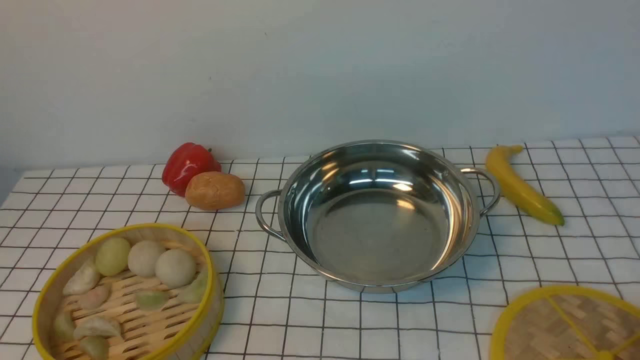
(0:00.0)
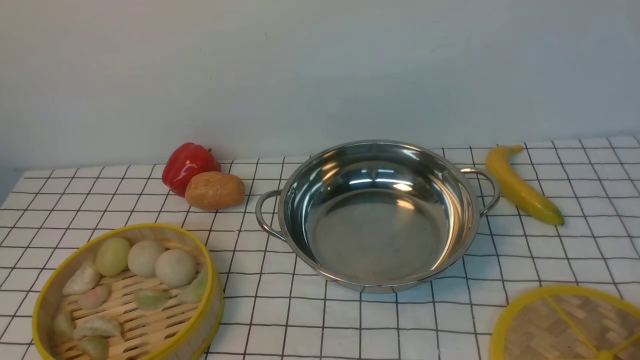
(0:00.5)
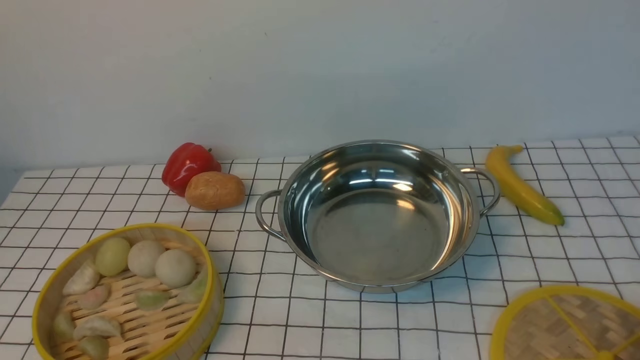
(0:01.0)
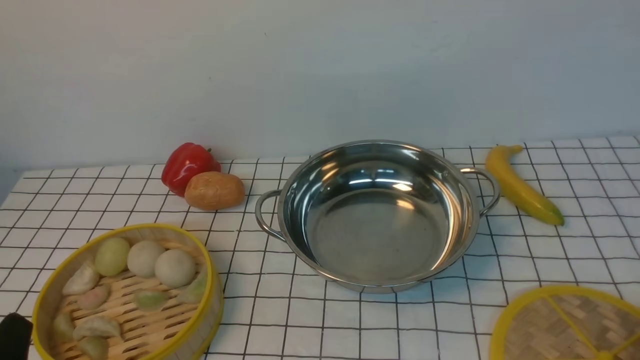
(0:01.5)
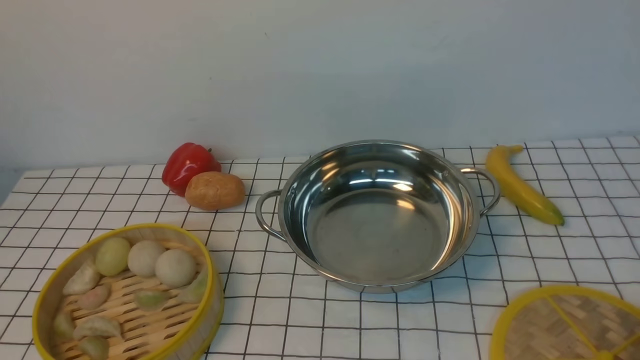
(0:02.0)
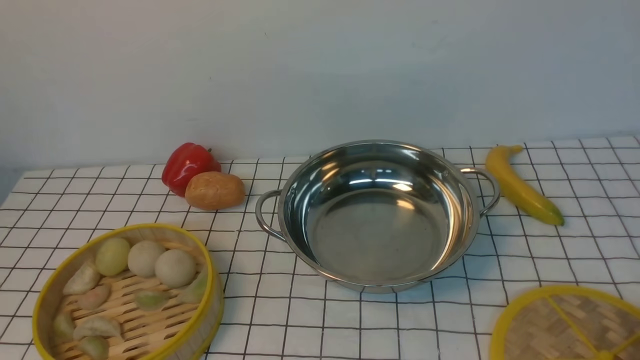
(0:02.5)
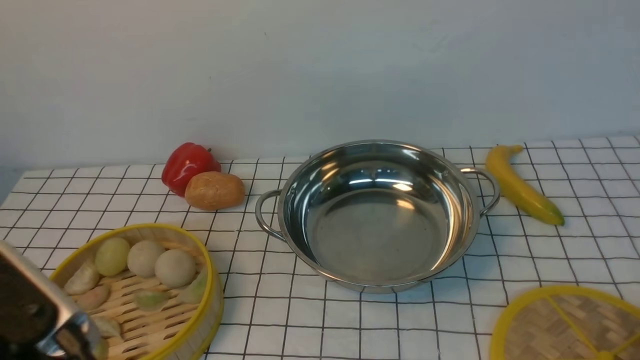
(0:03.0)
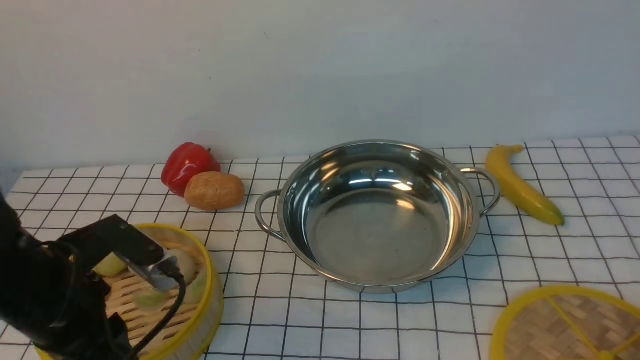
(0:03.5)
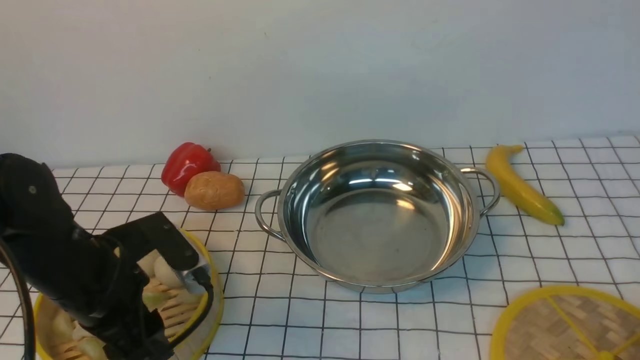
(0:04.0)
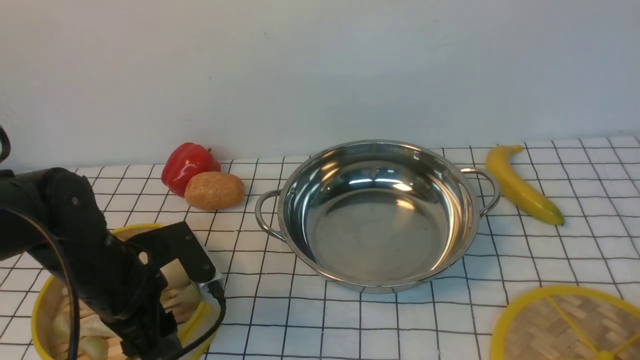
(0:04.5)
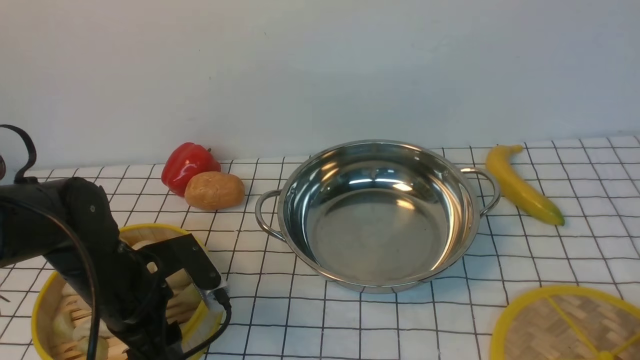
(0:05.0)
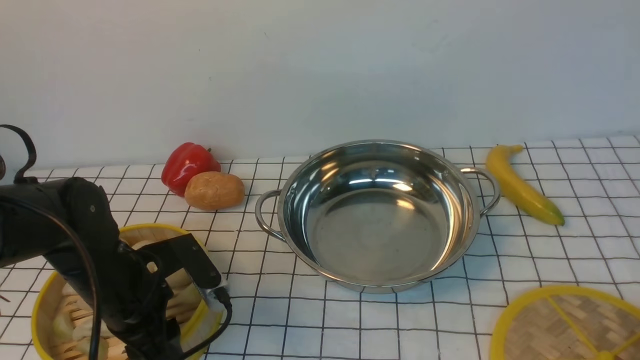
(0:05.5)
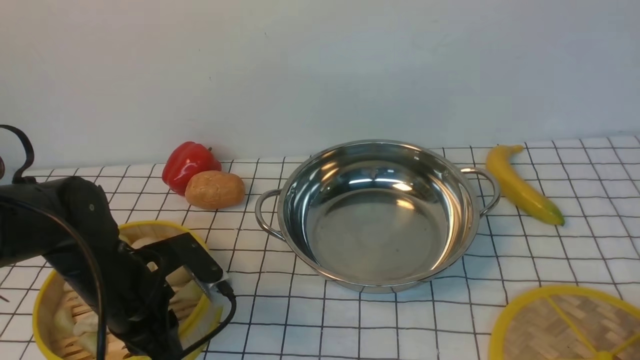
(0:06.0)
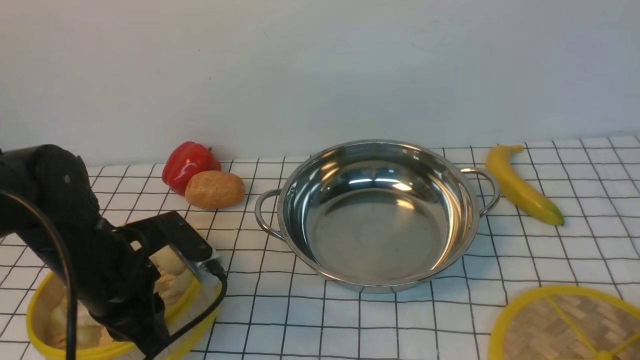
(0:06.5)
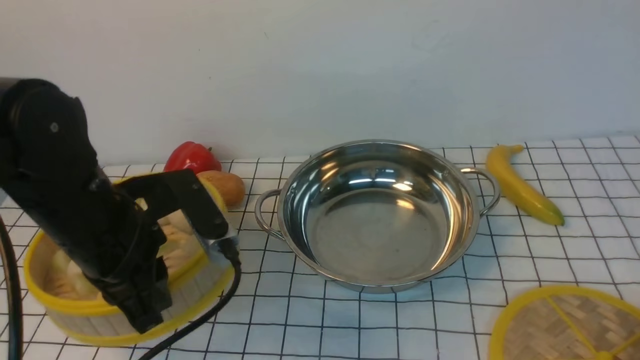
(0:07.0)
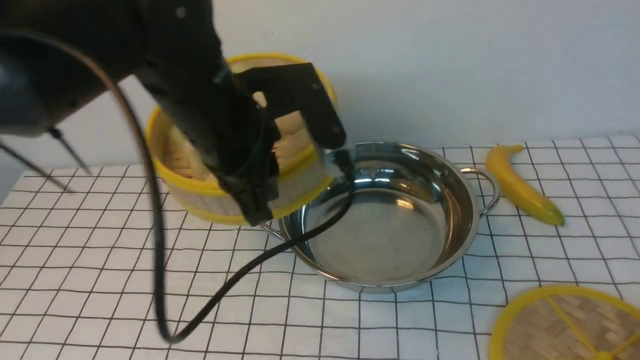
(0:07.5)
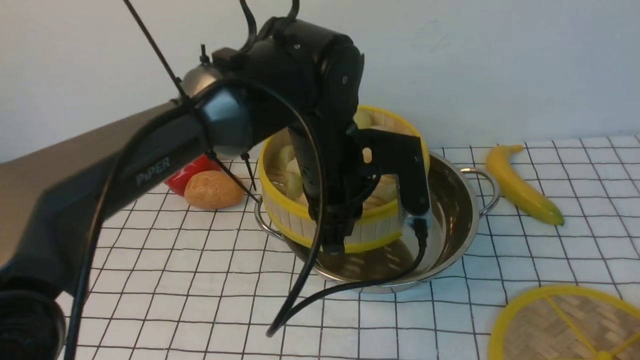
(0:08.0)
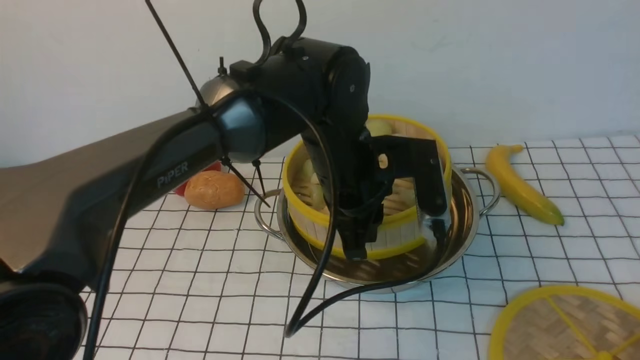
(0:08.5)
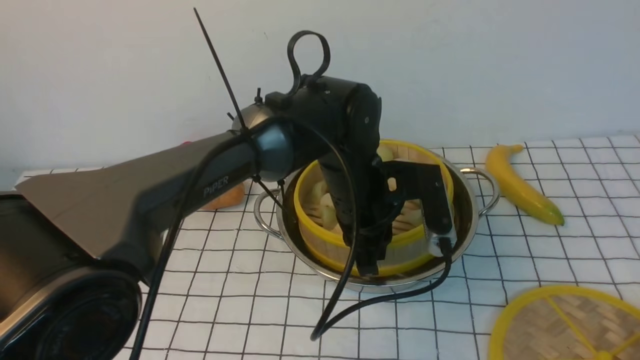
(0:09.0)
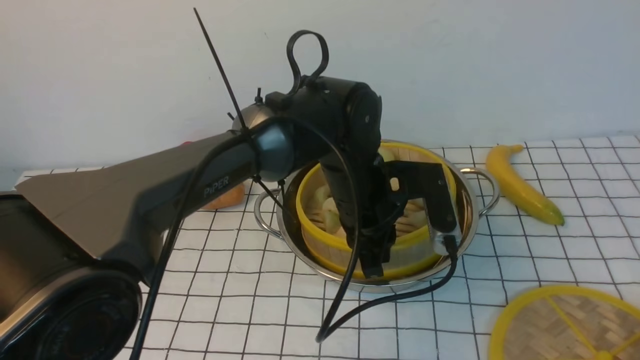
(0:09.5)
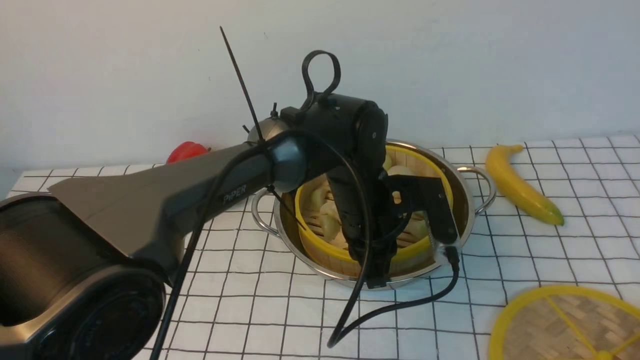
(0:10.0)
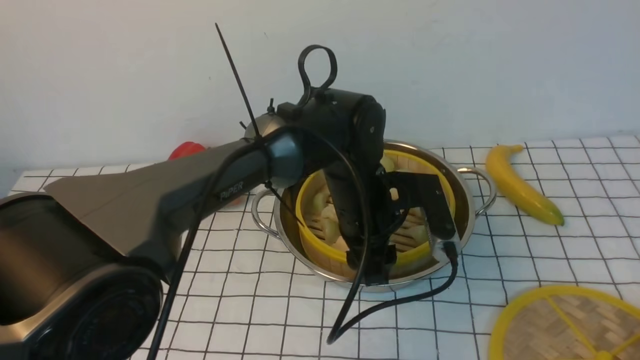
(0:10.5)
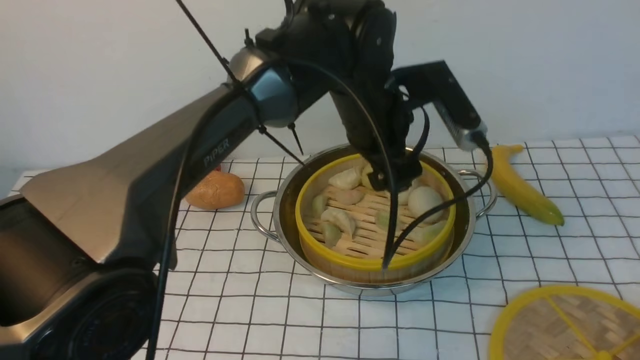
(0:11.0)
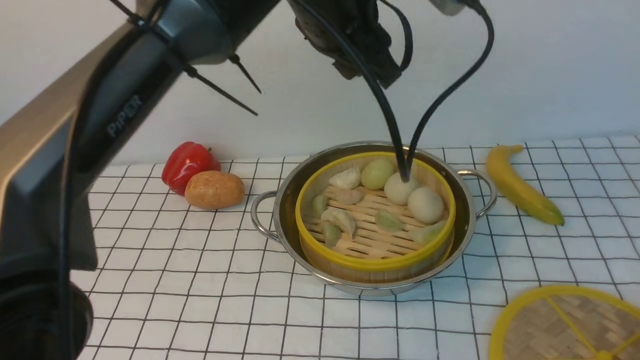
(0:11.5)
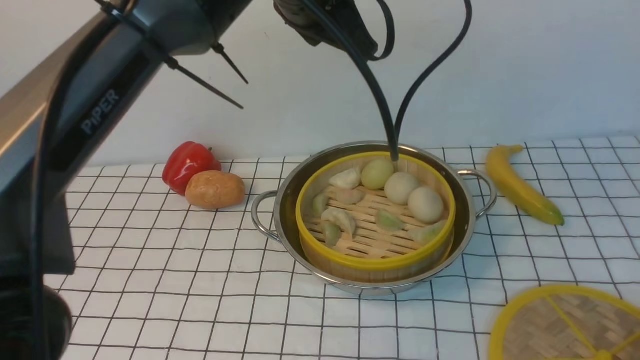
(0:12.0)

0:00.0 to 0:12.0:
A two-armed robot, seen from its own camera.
Task of the whole recording: place the steamer in the pot on the white tablecloth, and put the lid on the steamer.
Step, 0:00.0 to 0:06.5: use the left arm to lift the steamer closest to it.
Step, 0:07.0 to 0:10.5: use the left arm to put the steamer into the iron steamer pot in the middle.
0:02.0 to 0:04.0: The left gripper shifts some 20 cm forward, and opens up.
0:04.0 to 0:06.0: The left gripper moves some 5 cm, and closes up.
0:06.0 to 0:08.0: The left gripper is displaced to the right and upward by roughly 25 cm.
0:08.0 to 0:10.0: The left gripper shifts roughly 10 cm downward.
0:10.0 to 0:12.0: The left gripper moves upward, some 25 cm, and opens, then closes again.

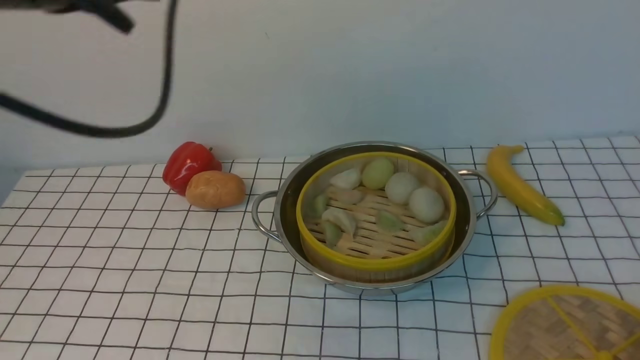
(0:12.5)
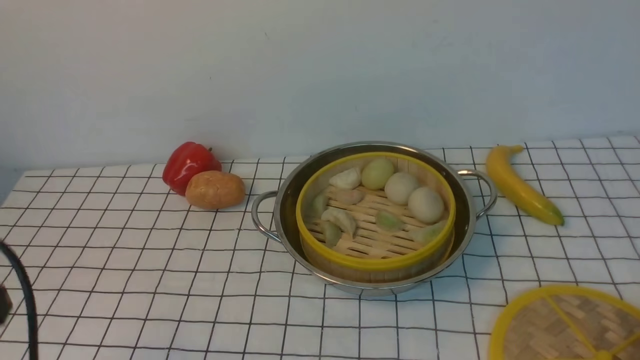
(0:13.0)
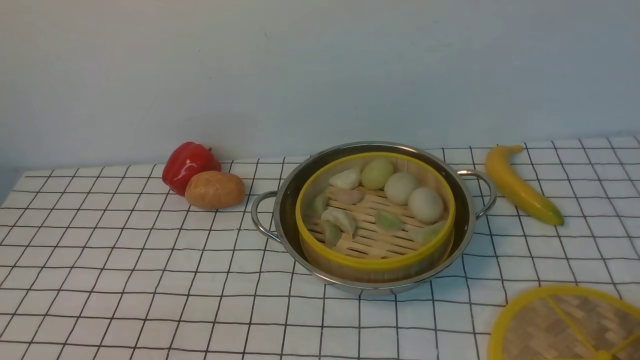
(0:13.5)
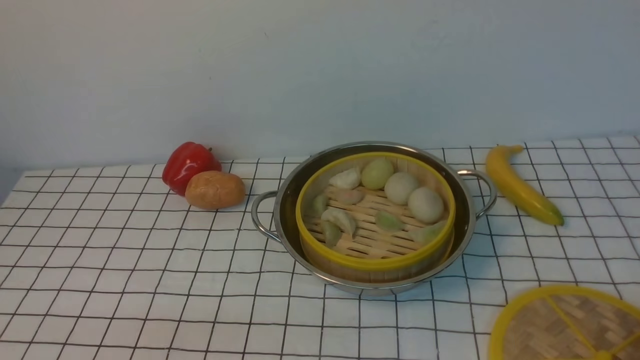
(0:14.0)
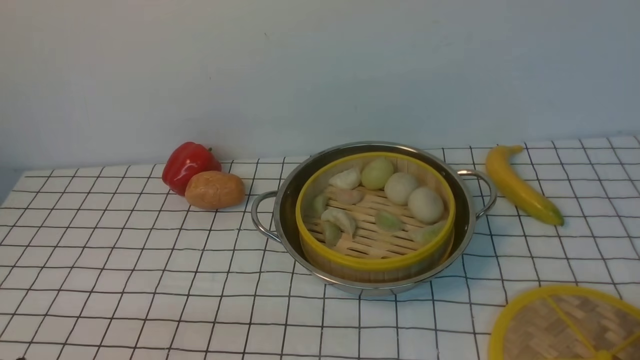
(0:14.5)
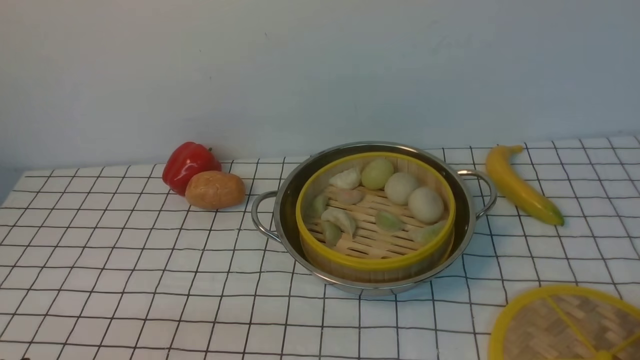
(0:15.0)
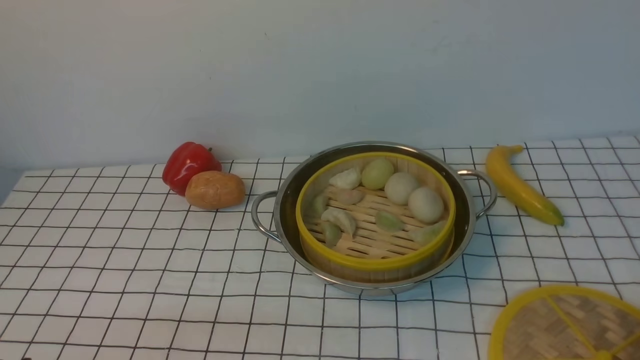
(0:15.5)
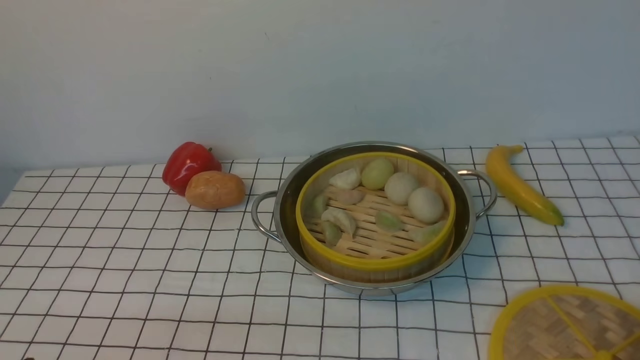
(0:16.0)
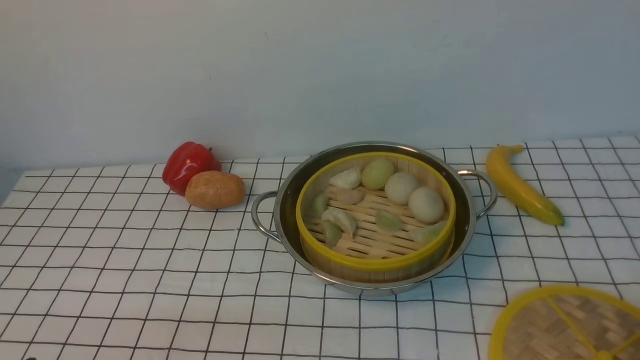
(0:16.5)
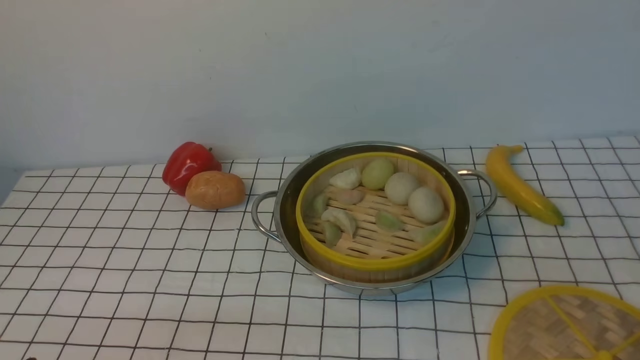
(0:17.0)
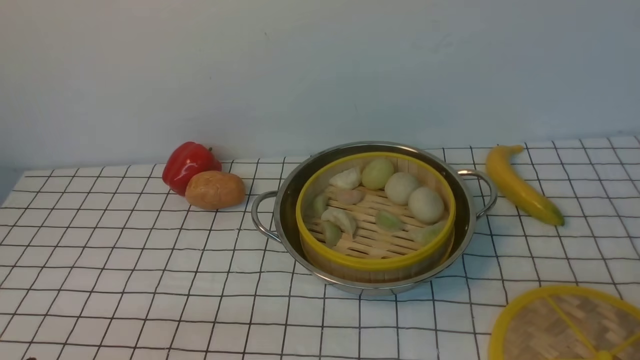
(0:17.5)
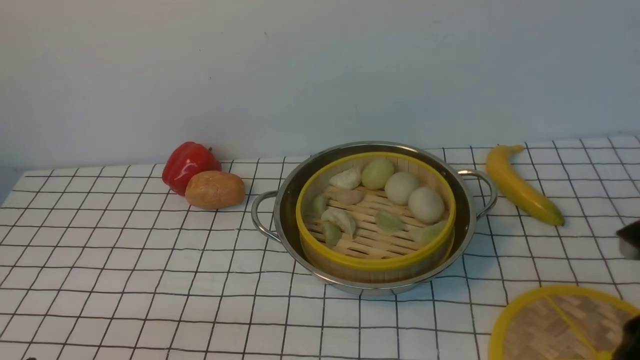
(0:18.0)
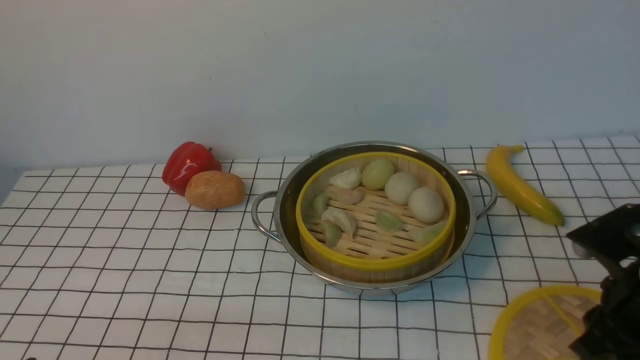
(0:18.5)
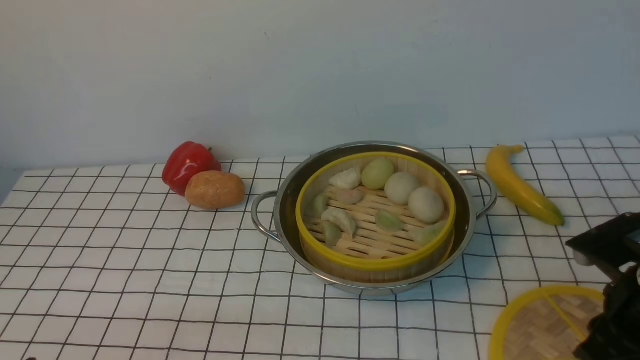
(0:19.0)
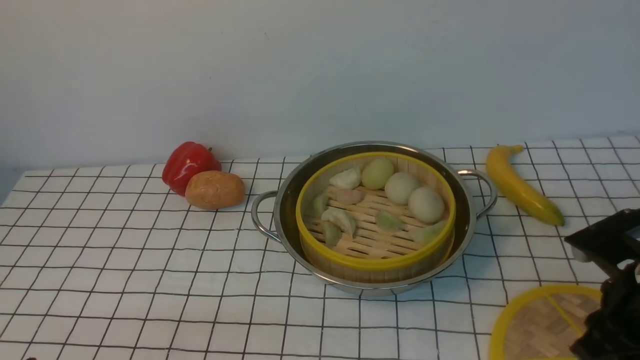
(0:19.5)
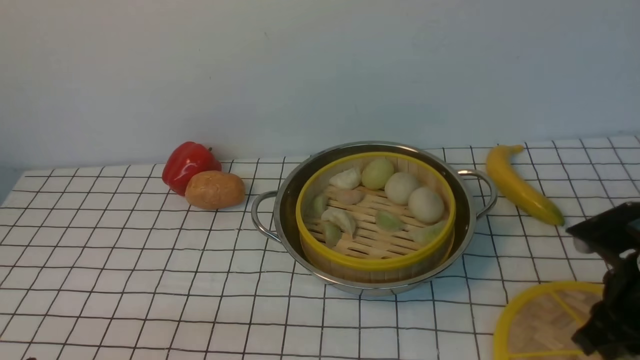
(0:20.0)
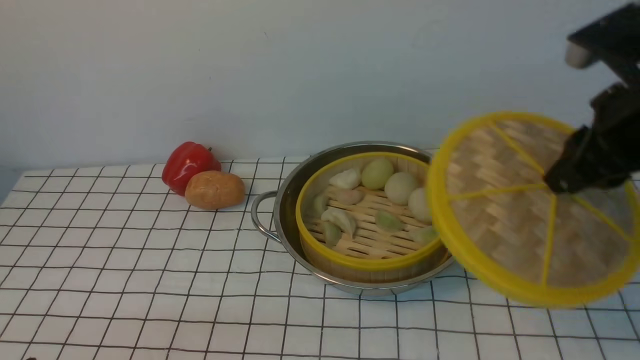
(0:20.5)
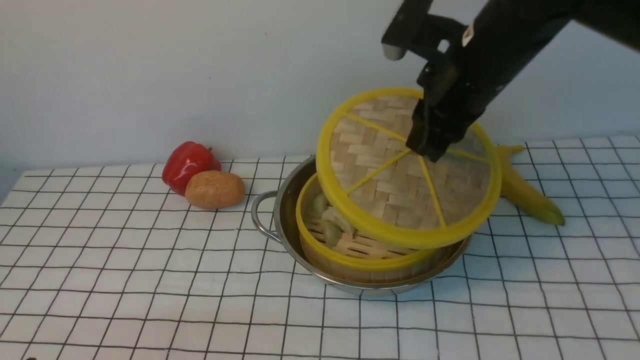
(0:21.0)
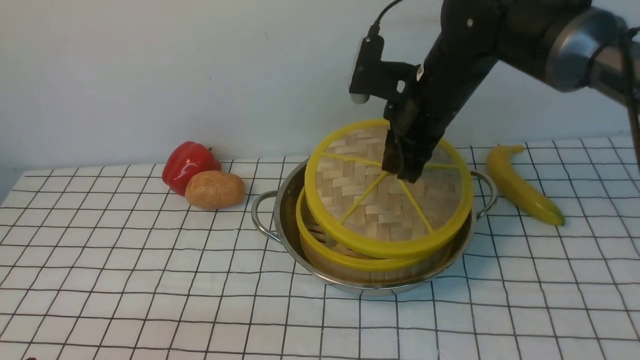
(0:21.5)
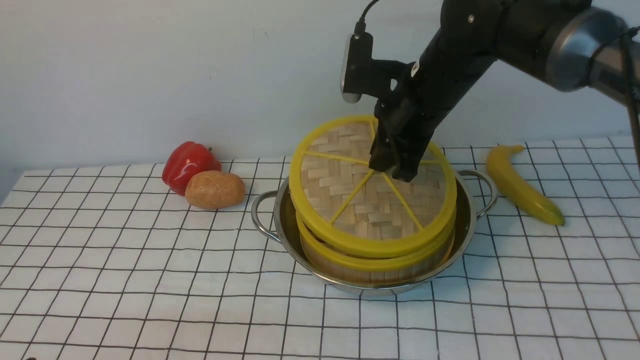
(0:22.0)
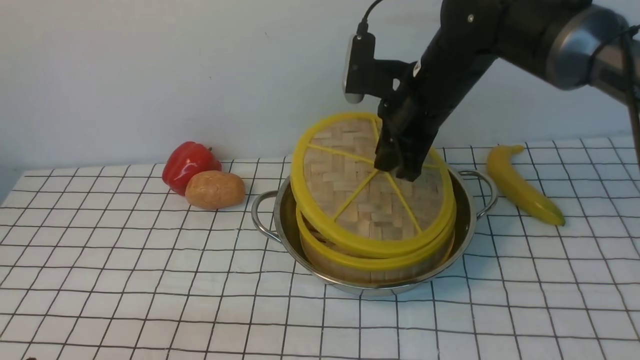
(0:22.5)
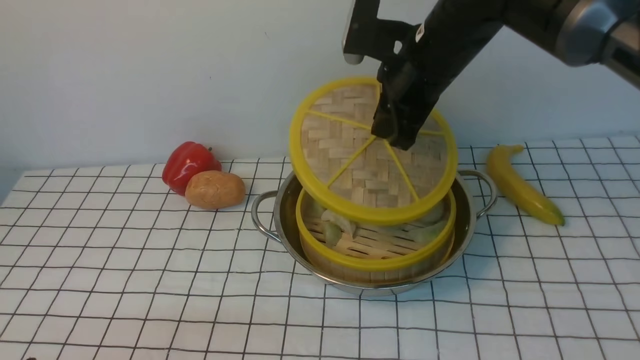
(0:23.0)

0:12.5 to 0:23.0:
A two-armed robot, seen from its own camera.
Task of the whole recording: place the steamer in the pot on the white tablecloth, and put the lid on the steamer.
Step, 0:12.5 to 0:20.0: use the right arm to lift the lid of the steamer.
0:12.5 to 0:14.5: The left gripper is displaced downward and backward by approximately 35 cm.
0:16.5 to 0:19.0: The right gripper moves forward, roughly 15 cm.
0:19.0 to 0:21.0: The right gripper shifts about 25 cm to the left, upward and forward.
0:21.0 to 0:23.0: The right gripper changes place by roughly 5 cm.
